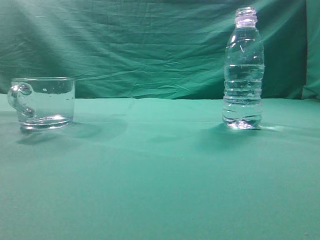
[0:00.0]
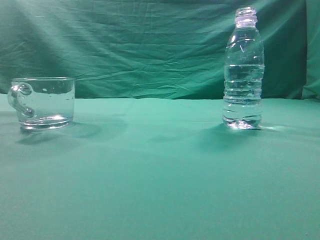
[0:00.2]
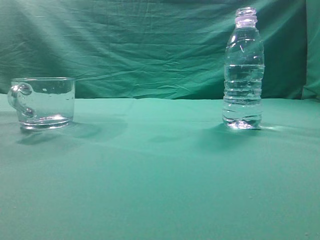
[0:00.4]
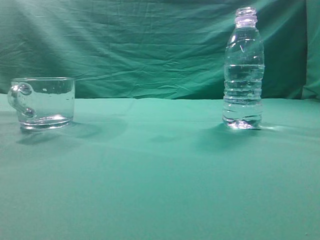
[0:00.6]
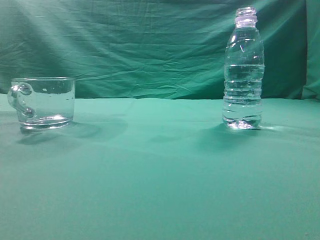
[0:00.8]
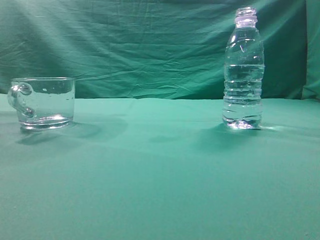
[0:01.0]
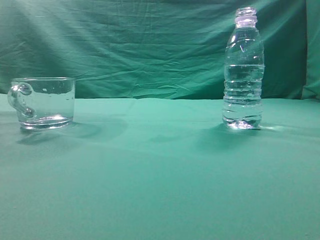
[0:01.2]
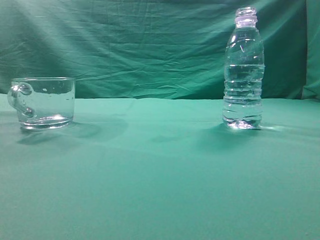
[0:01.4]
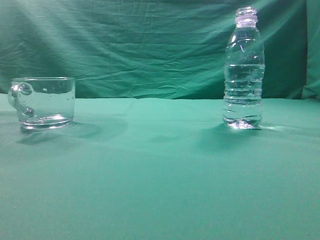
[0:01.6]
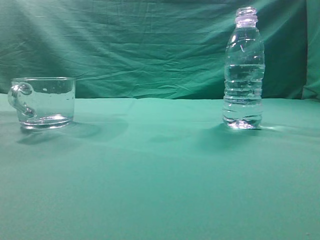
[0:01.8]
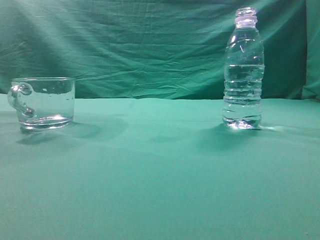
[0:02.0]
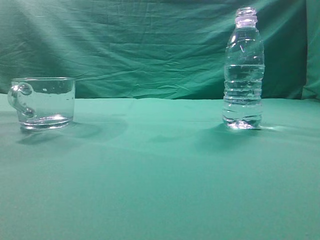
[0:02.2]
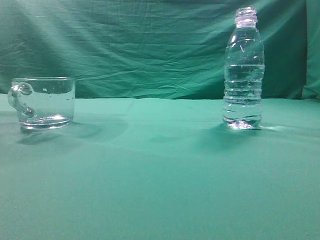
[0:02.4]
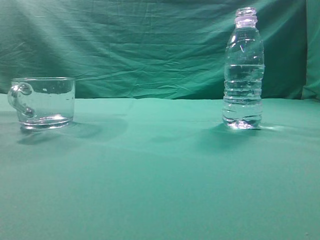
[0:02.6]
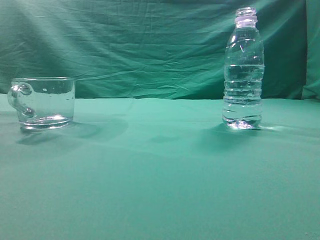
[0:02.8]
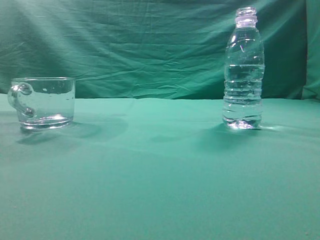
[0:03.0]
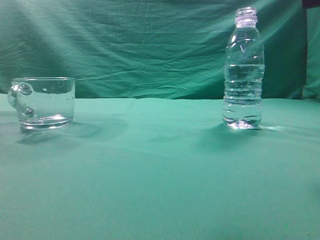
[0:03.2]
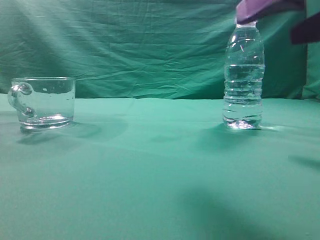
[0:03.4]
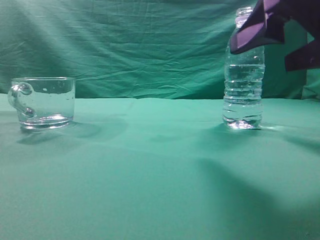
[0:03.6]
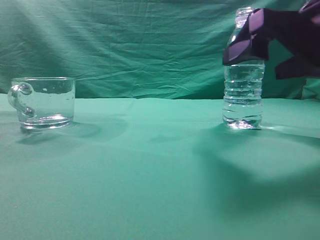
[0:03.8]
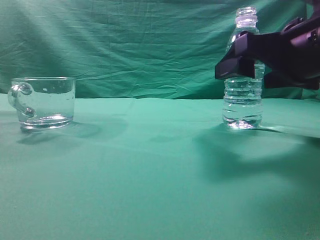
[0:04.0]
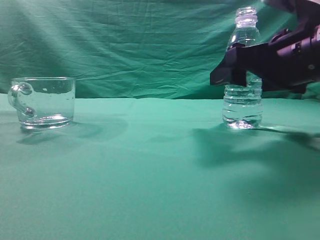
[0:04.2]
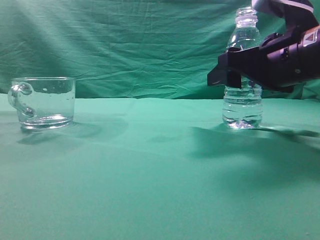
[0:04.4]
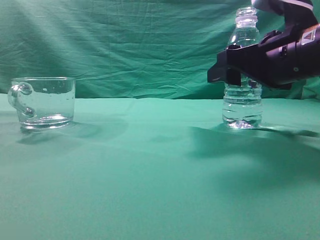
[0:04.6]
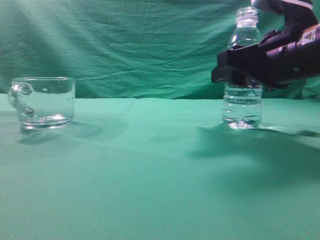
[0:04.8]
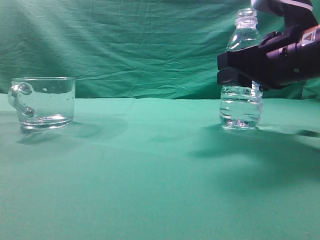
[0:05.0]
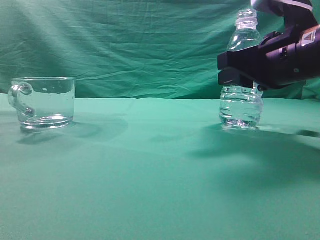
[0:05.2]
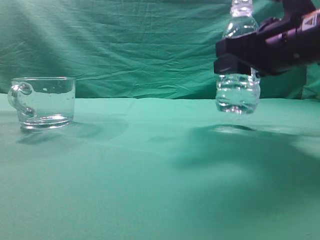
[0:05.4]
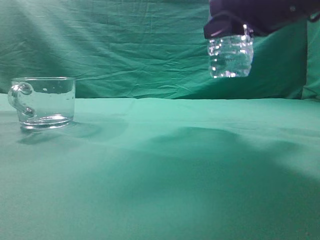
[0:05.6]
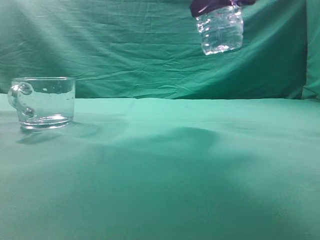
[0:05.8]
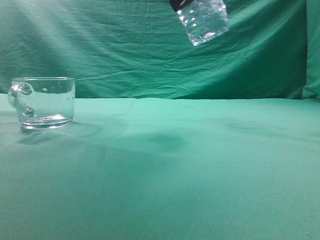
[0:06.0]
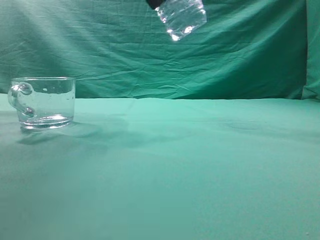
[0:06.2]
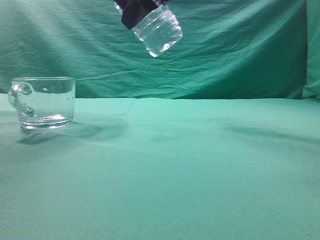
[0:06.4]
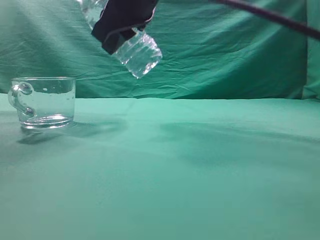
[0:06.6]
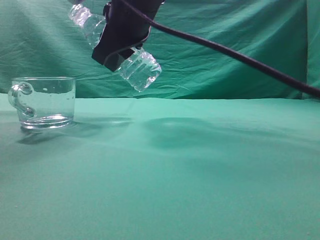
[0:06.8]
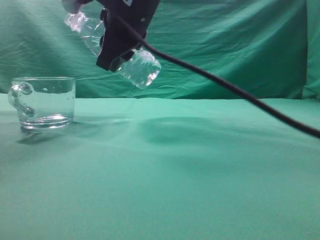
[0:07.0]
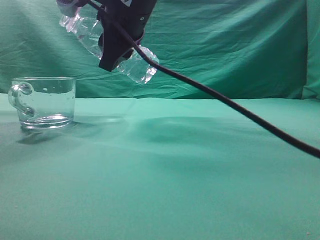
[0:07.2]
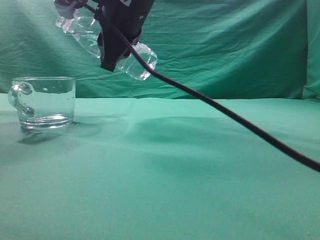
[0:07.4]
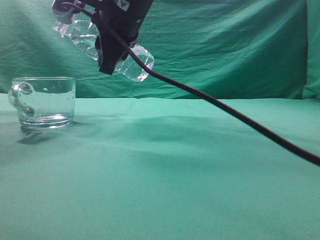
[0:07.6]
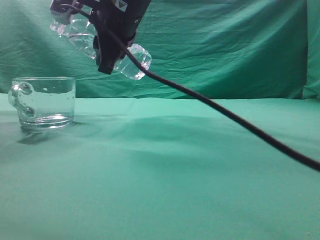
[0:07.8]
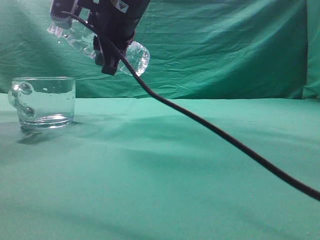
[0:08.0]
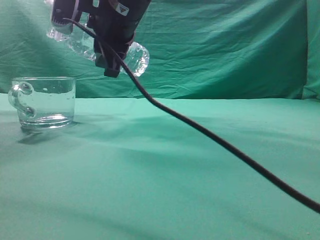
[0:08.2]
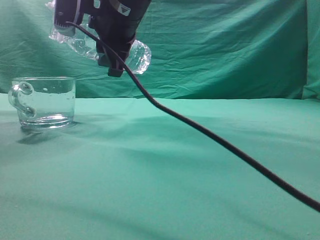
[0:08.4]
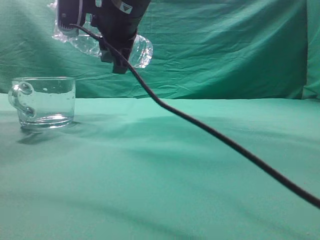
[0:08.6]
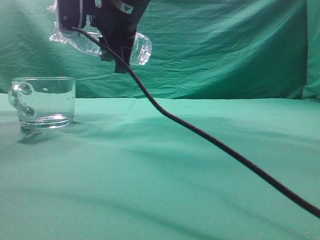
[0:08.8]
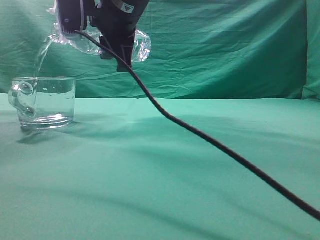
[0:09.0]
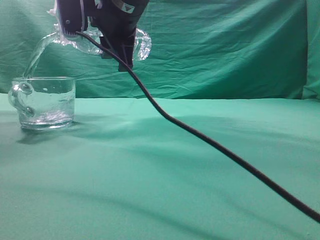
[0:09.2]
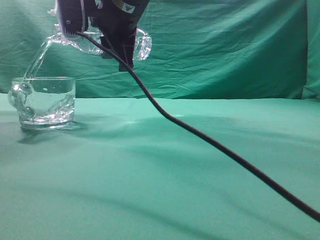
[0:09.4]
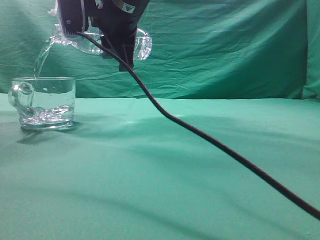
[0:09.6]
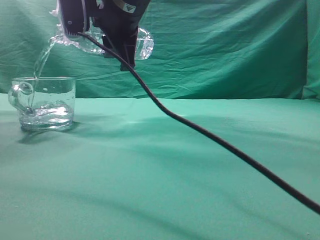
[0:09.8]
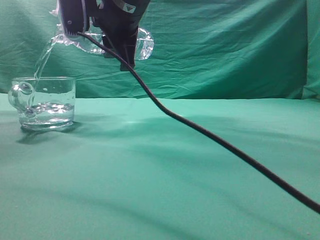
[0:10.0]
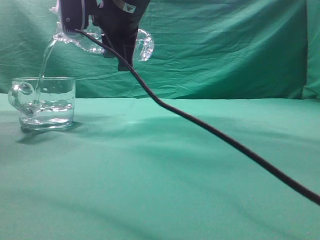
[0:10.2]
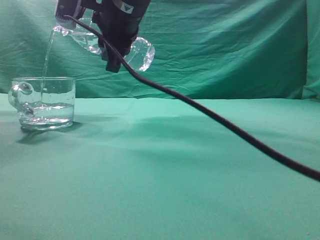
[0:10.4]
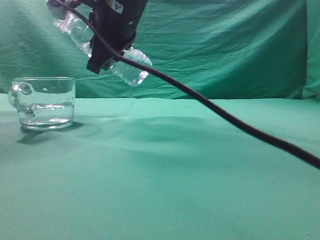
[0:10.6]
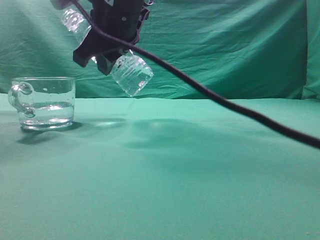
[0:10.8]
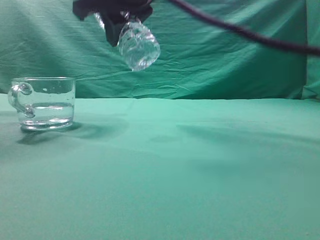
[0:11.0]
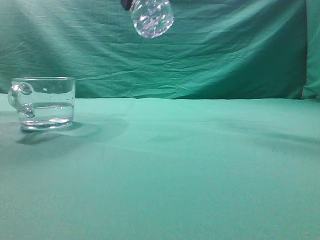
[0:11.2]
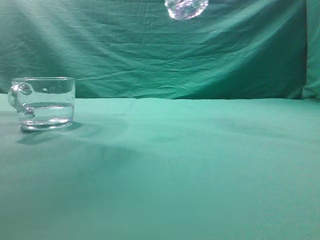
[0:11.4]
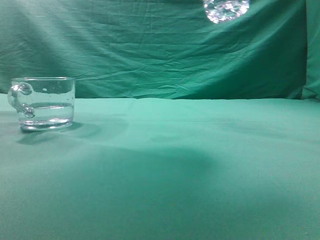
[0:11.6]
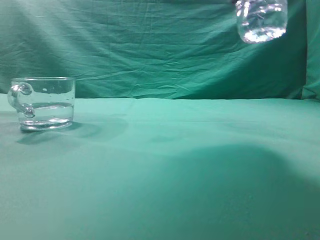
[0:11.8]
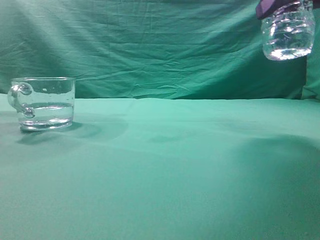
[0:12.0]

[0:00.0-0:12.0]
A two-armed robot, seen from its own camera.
Task of the whole recording: pick up the water bottle and pour the water in it into the glass.
Step, 0:00.0 to 0:05.4: Grasp the mineral water bottle.
Step, 0:05.6 to 0:10.8: Pour water into the teacup.
0:03.0 to 0:04.4: The right gripper heads forward and downward, covering some 20 cm, and opens.
0:04.4 to 0:06.0: The right gripper shifts some 20 cm upward and to the left, and closes up.
0:06.0 to 0:07.6: The right gripper goes some 15 cm to the left, downward and forward.
0:09.0 to 0:10.4: The grippers make only small movements.
0:10.4 to 0:12.0: The right gripper moves to the right and backward, approximately 25 cm.

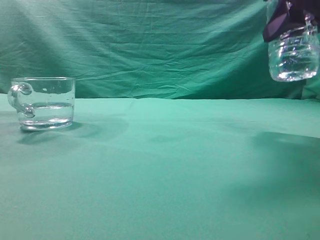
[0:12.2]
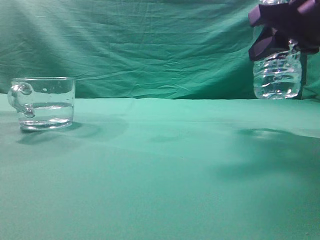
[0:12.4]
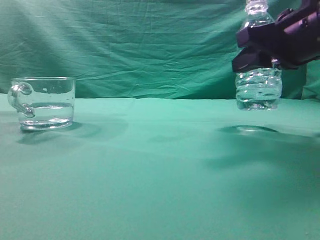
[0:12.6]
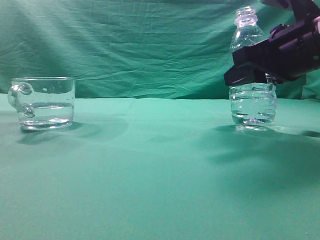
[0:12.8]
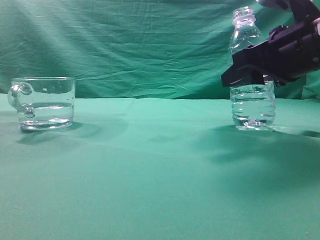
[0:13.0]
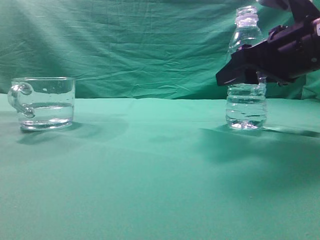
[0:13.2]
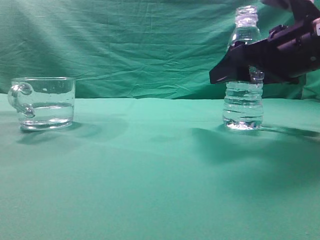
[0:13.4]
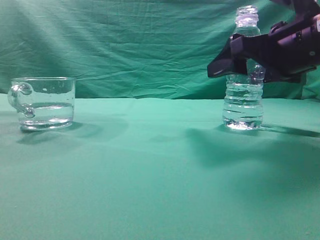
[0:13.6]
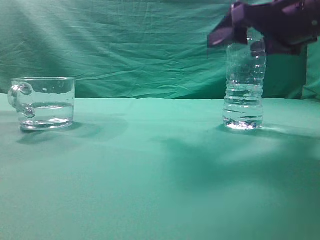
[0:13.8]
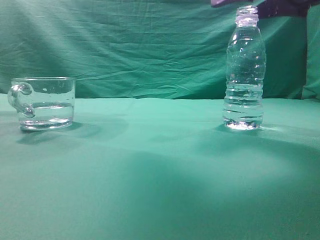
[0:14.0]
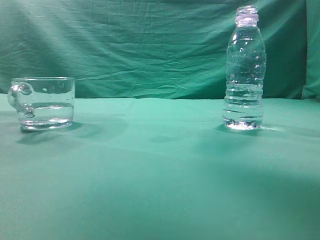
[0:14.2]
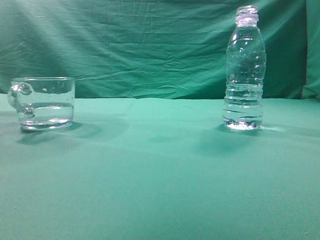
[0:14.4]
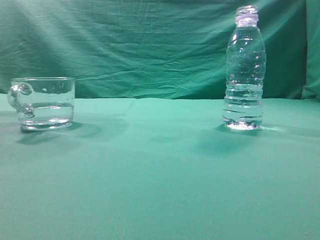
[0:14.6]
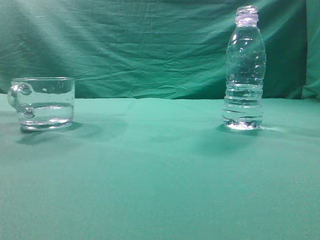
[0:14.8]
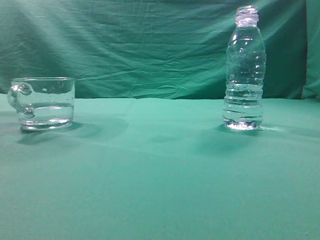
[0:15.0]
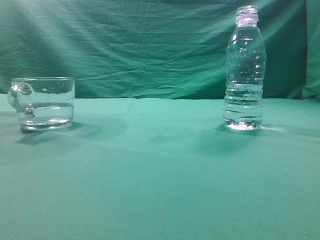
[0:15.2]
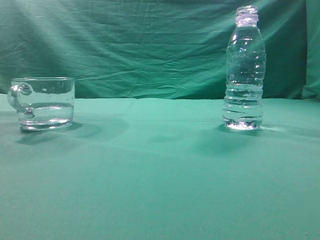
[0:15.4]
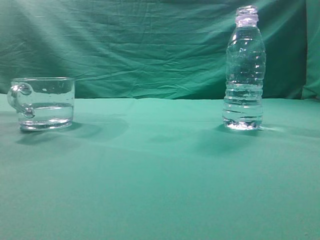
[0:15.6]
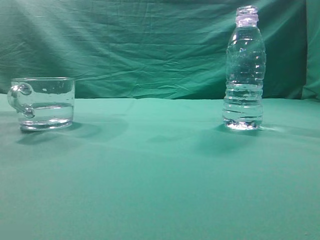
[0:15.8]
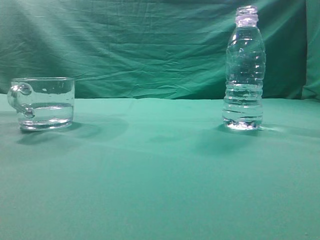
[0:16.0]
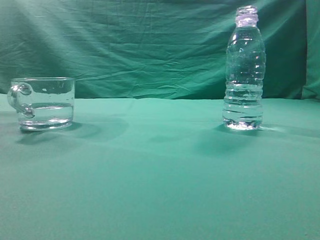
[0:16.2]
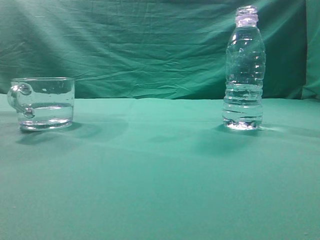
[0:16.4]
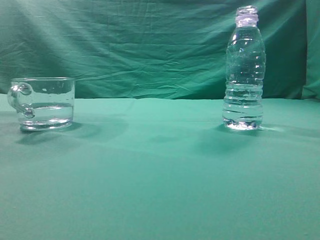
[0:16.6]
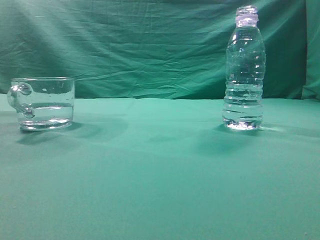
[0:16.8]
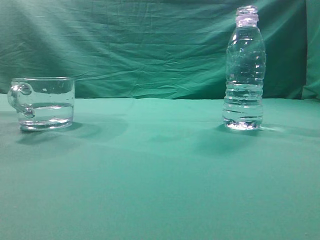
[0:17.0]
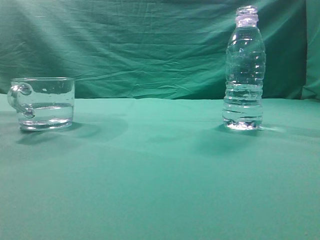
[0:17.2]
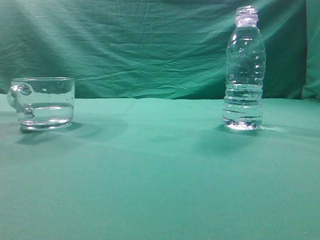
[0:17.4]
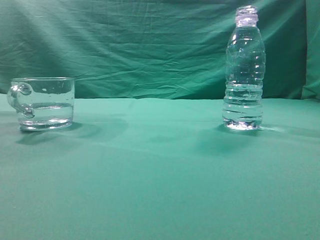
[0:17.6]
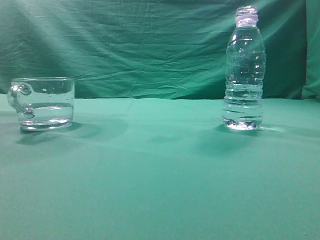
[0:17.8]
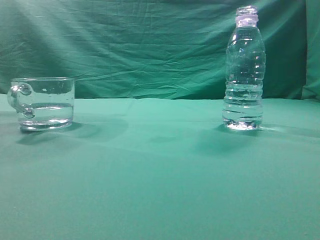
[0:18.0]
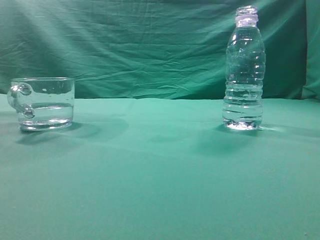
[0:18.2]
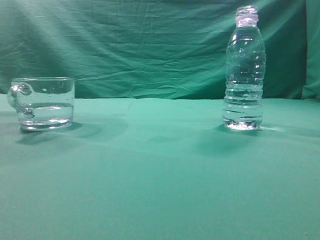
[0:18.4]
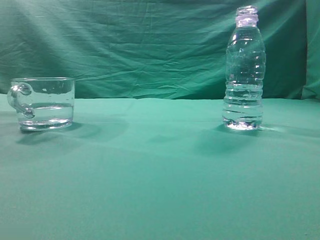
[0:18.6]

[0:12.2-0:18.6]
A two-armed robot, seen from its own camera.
Task of the whole recording: pick up the water bottle and pour the water in it into the glass.
0:12.2 to 0:13.8: The right gripper opens its fingers.
0:13.8 to 0:15.4: The right gripper shifts roughly 30 cm upward and backward, and closes its fingers.
